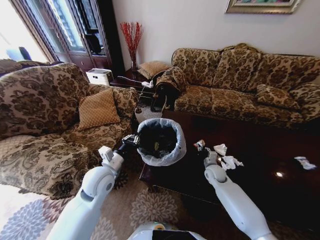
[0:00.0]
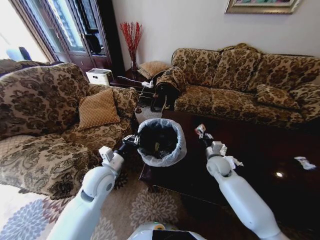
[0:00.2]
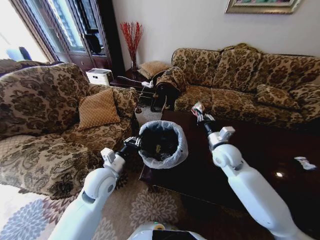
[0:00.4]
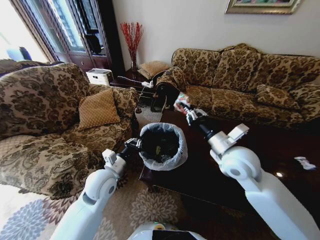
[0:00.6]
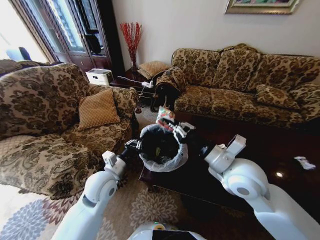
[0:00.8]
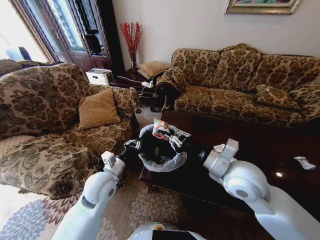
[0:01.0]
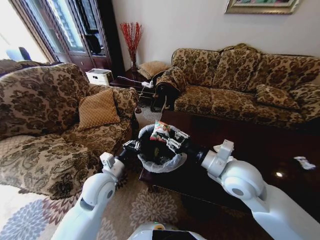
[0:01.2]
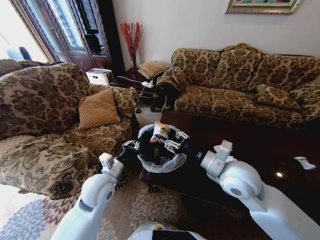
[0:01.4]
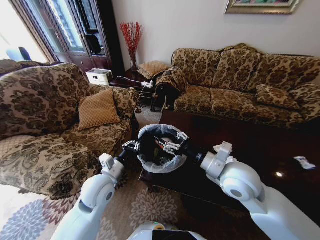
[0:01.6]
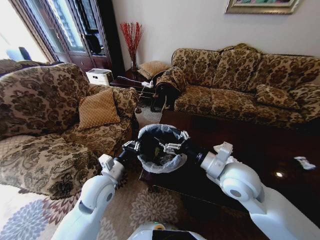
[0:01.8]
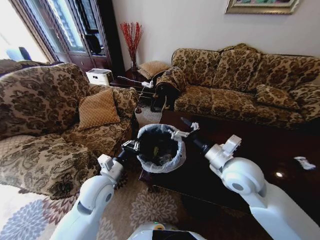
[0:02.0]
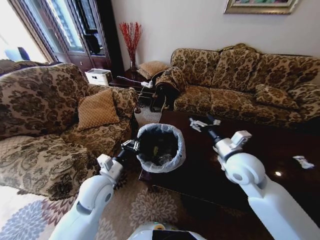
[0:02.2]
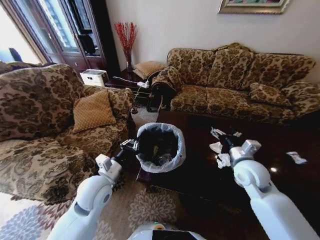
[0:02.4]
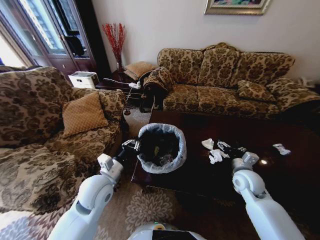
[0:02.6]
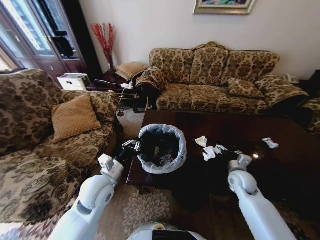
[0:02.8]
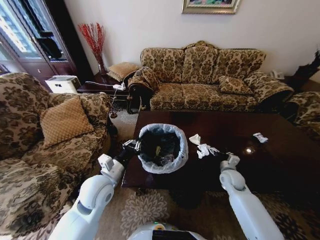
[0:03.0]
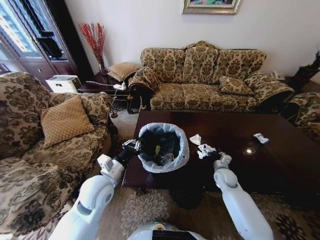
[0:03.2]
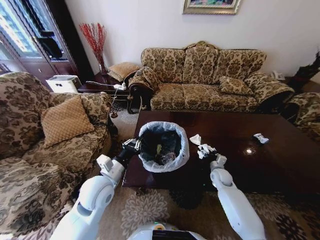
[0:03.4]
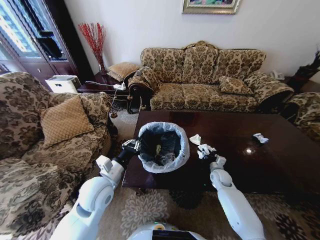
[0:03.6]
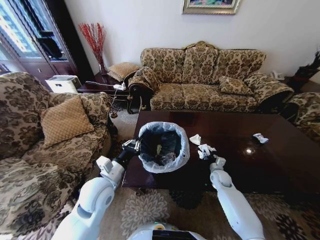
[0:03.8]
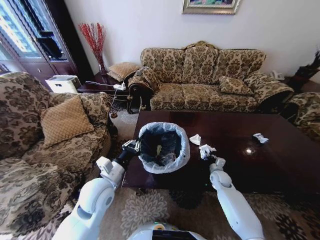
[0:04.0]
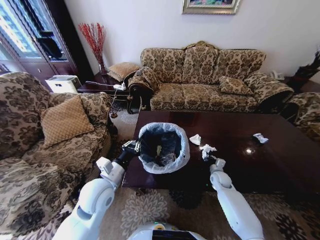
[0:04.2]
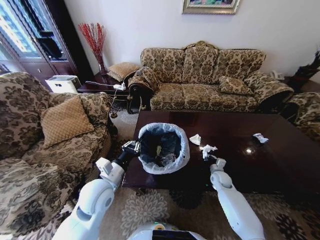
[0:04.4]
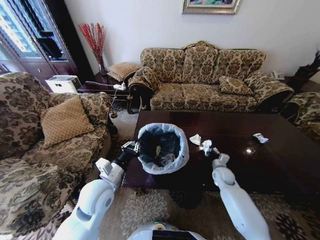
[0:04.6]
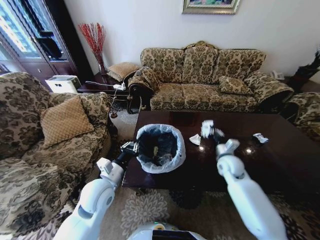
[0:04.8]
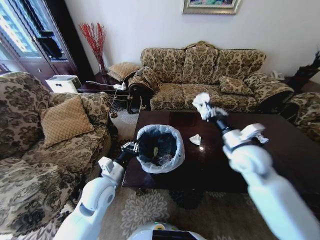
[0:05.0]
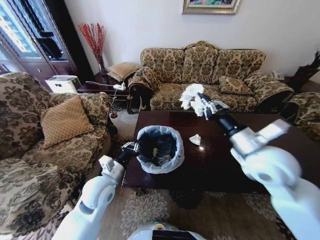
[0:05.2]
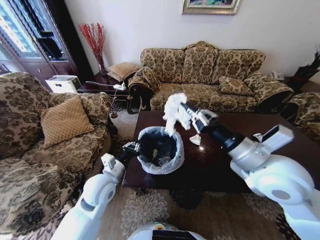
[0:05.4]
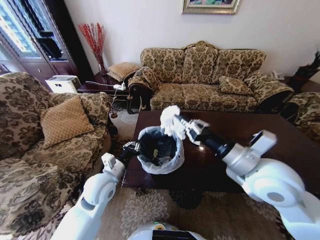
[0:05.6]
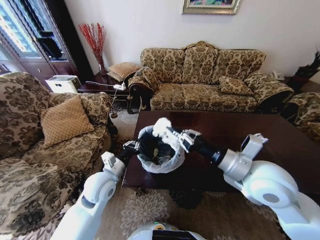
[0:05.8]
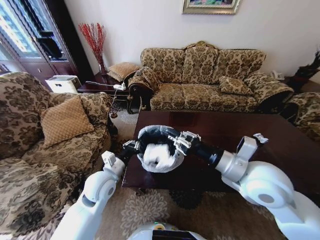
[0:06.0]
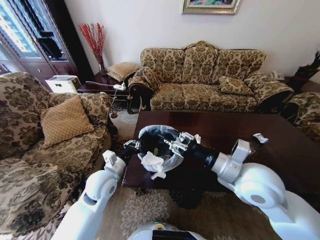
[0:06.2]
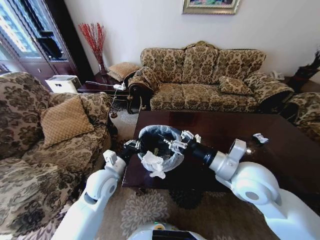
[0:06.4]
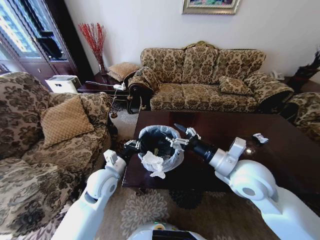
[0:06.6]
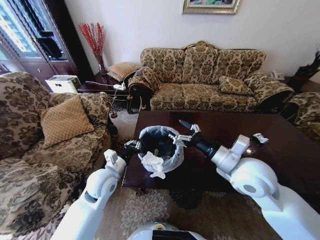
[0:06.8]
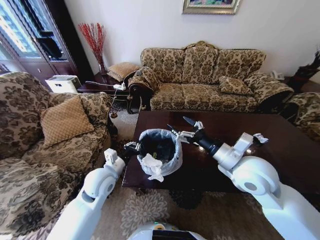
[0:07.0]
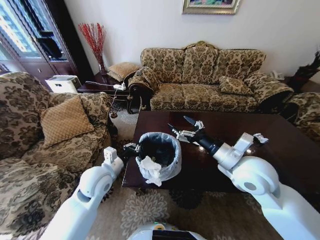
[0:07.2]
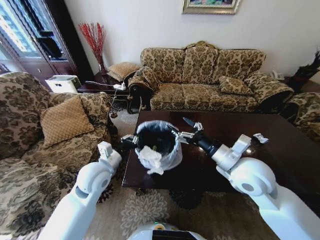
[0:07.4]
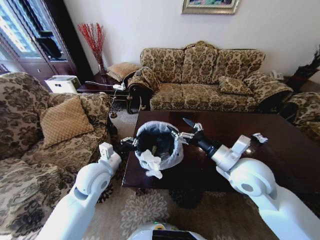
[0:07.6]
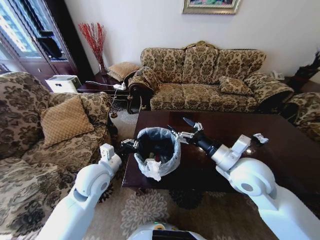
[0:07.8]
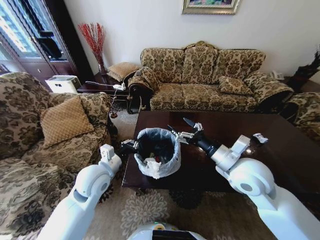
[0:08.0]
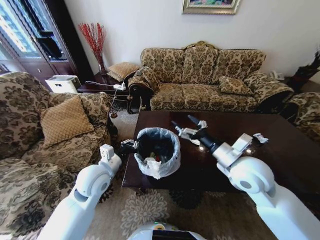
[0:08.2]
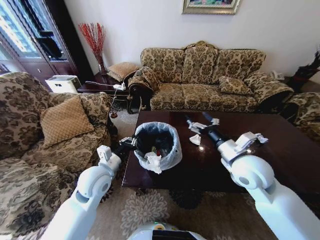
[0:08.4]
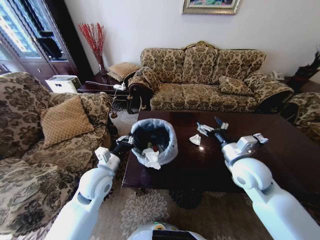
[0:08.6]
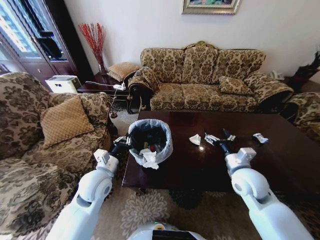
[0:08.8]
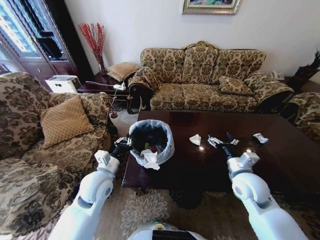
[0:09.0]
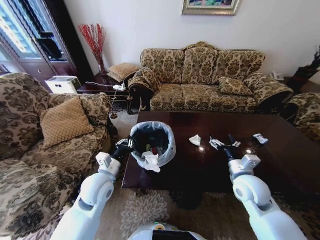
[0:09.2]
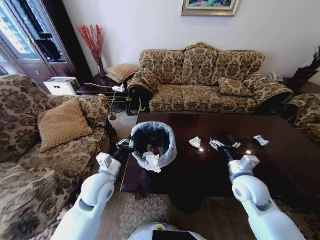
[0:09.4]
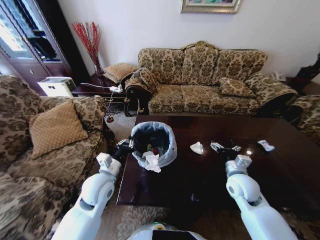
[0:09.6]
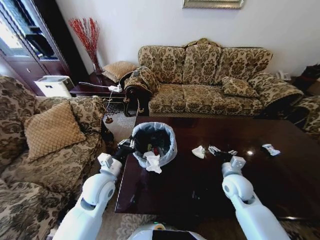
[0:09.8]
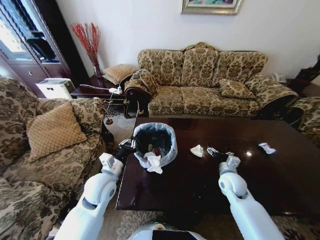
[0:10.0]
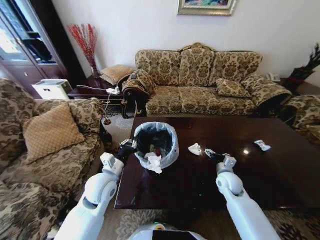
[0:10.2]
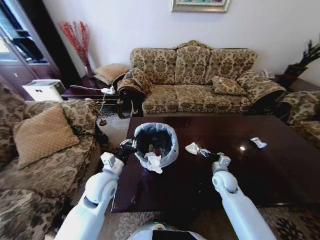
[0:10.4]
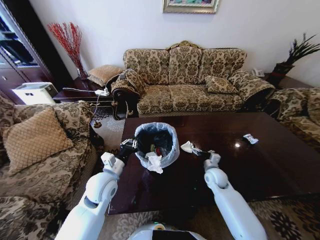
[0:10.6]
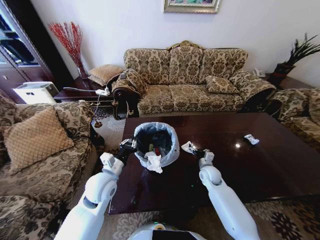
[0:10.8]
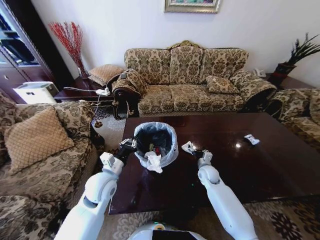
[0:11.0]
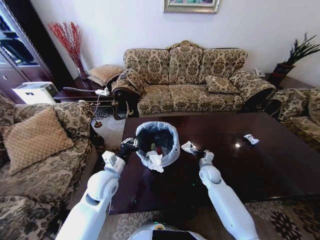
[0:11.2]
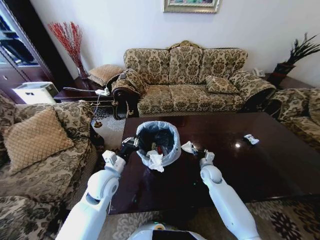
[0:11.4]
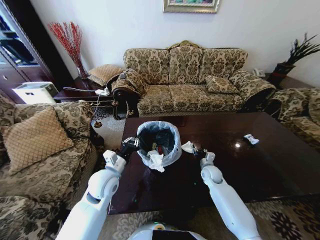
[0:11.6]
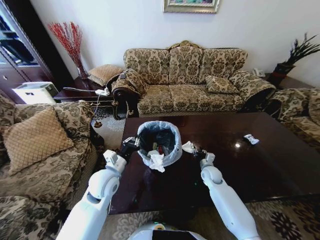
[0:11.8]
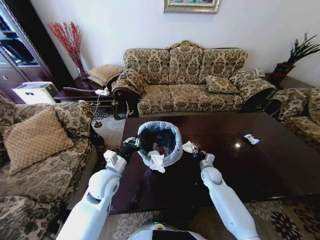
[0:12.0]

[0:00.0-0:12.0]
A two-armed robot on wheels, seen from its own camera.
Task of the whole recording: Move to the front of the table and place the trash on the table into the trash bin.
0:00.0 to 0:01.6: The right gripper goes roughly 30 cm upward and backward, and opens its fingers.
0:01.6 to 0:03.0: The right gripper moves downward, to the right and forward, some 30 cm.
0:03.0 to 0:04.4: The right gripper heads downward, covering approximately 5 cm, and closes.
0:04.4 to 0:06.0: The right gripper shifts some 35 cm upward and backward.
0:06.0 to 0:07.6: The right gripper opens.
0:07.6 to 0:09.0: The right gripper goes roughly 10 cm downward and to the right.
0:09.0 to 0:10.4: The right gripper shifts approximately 15 cm downward and forward.
0:10.4 to 0:12.0: The right gripper is displaced downward by roughly 5 cm, and closes up.

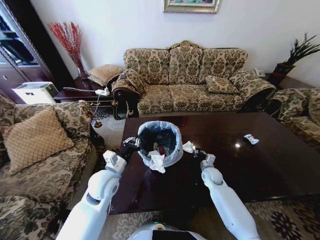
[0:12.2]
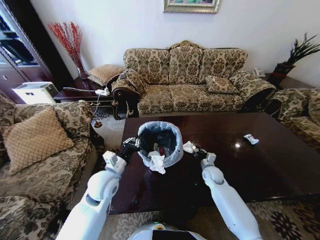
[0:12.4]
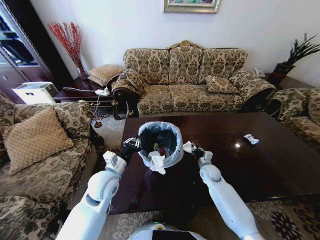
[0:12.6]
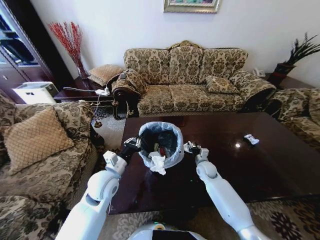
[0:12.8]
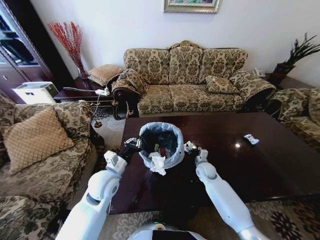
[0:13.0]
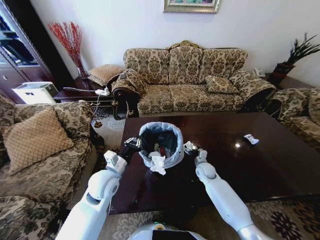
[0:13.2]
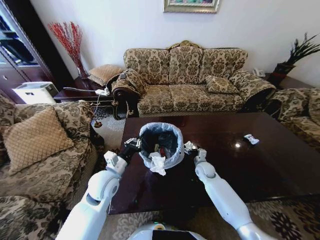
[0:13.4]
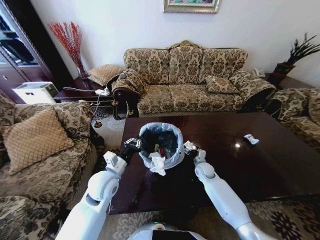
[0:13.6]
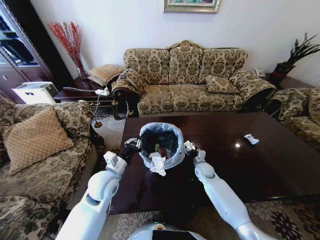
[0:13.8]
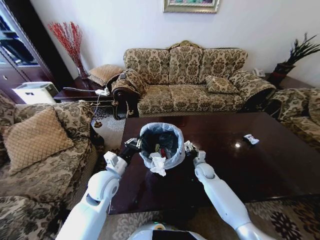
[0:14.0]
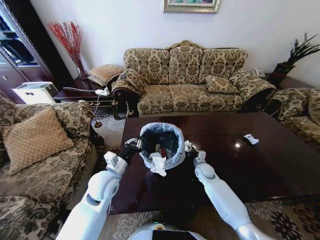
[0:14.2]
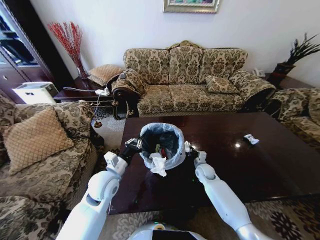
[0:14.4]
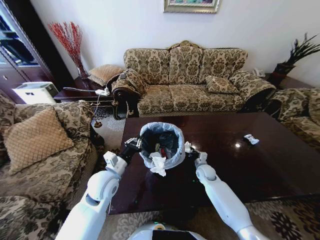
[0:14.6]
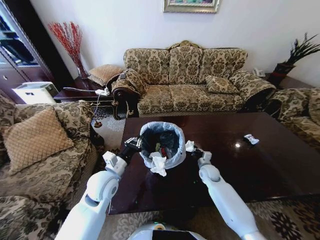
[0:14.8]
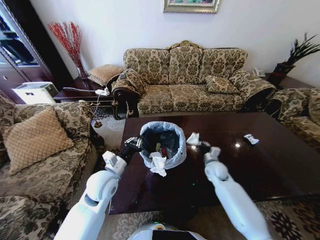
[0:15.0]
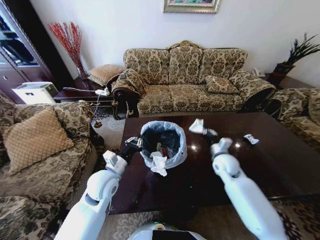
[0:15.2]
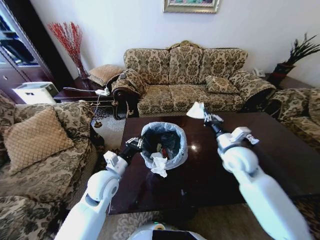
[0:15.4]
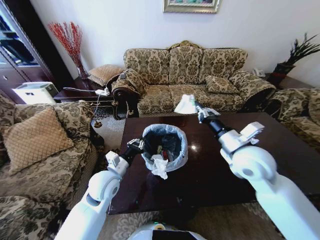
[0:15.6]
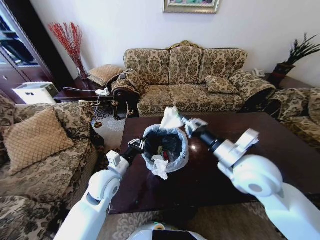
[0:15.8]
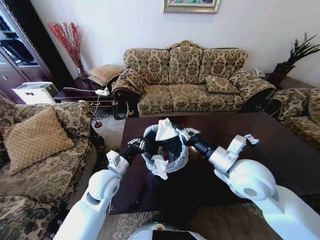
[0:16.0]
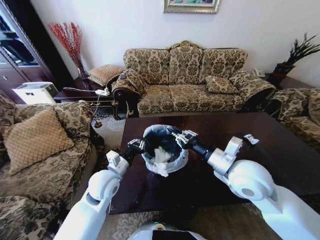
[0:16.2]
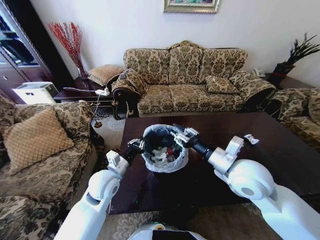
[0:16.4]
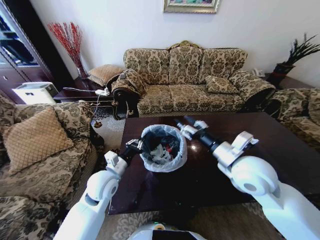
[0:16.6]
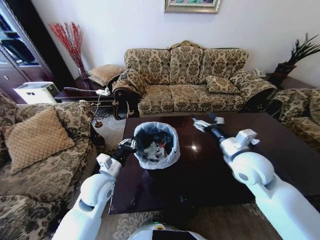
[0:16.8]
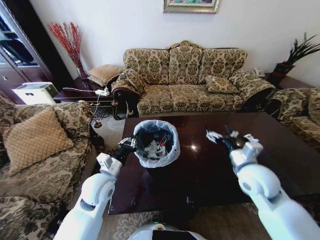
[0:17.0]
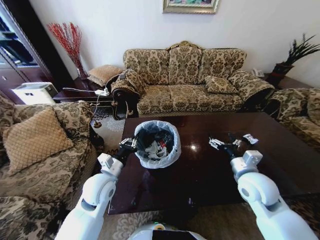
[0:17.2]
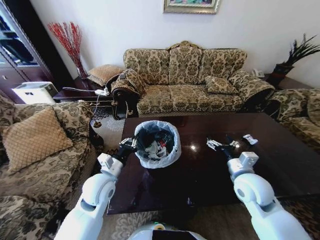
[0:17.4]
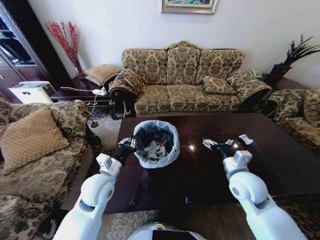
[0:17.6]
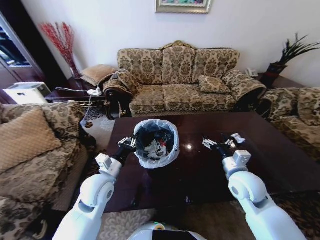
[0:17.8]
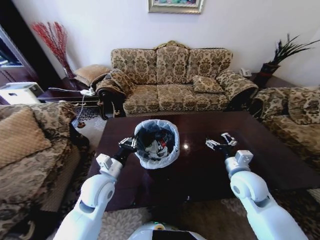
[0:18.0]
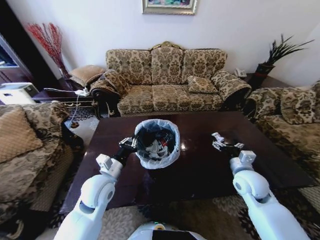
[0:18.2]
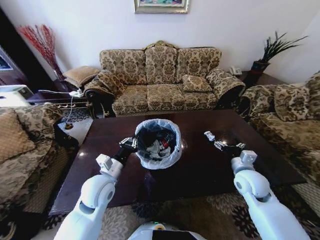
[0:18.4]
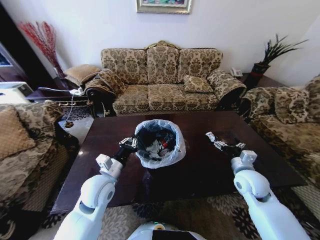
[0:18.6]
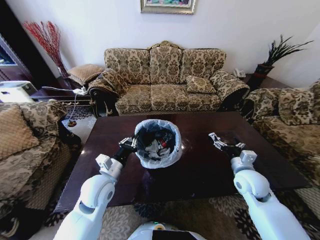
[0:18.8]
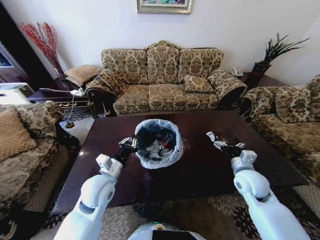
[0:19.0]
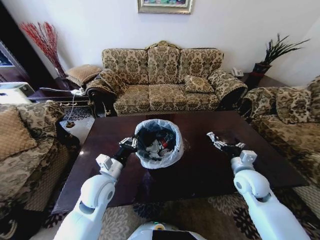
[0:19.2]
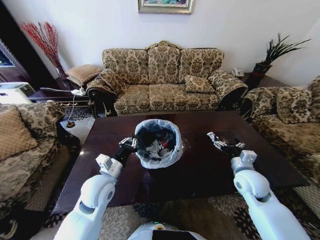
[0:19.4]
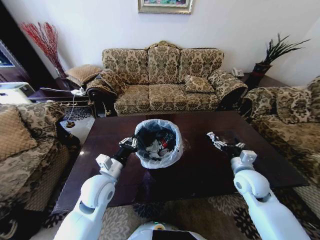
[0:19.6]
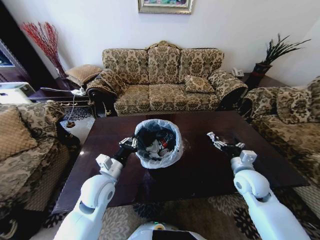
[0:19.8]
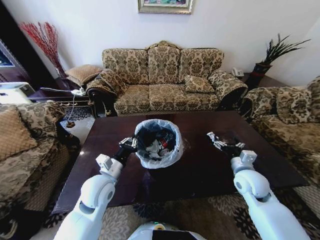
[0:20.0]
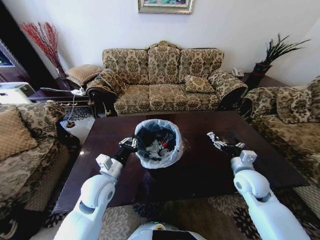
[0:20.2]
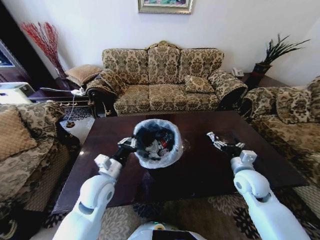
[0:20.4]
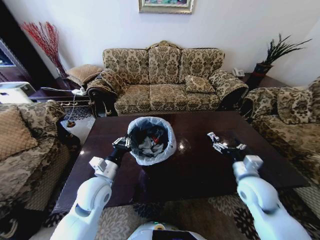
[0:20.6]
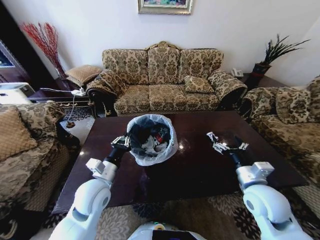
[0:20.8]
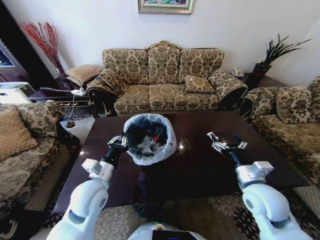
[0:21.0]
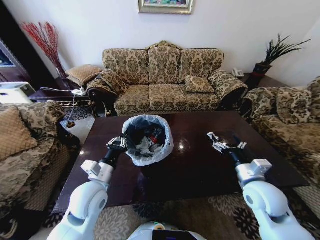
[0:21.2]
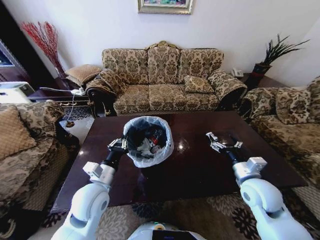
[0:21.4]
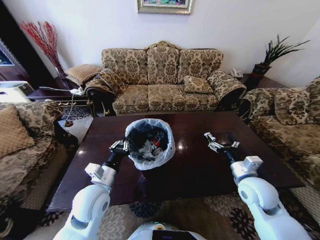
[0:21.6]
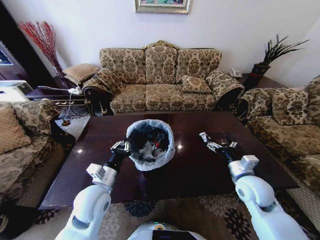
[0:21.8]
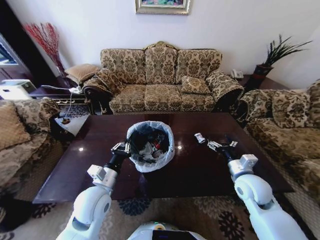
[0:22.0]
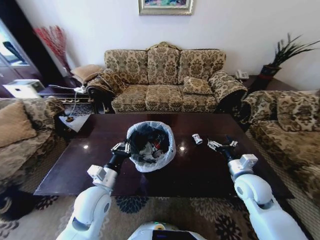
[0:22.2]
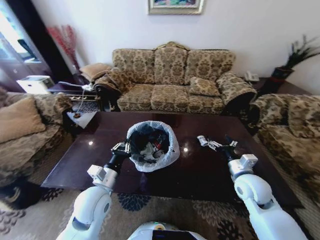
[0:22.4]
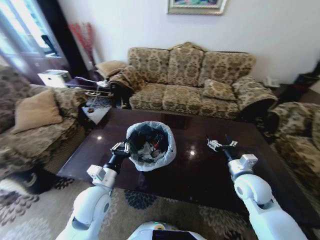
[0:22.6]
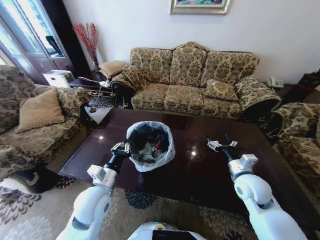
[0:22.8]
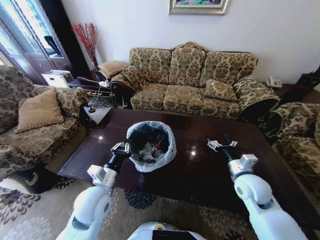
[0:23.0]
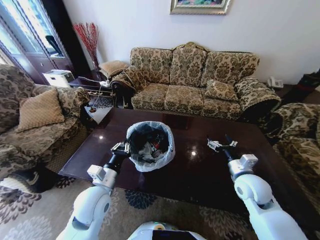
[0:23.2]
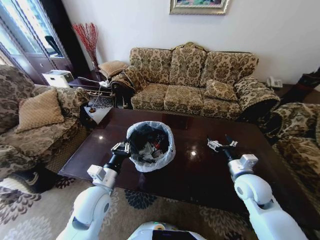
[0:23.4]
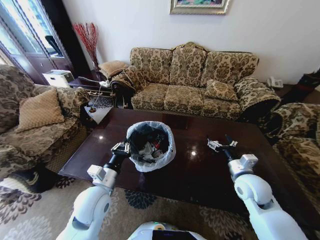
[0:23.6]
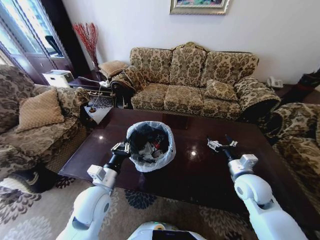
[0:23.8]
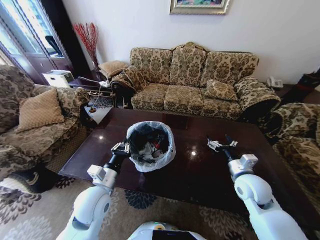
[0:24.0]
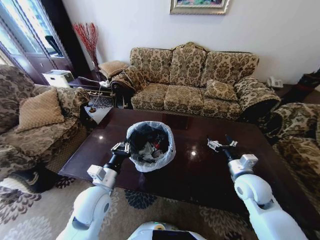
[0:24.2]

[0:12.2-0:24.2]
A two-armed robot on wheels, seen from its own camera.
Task of the whole recording: Move to the front of the table and place the trash on the table into the trash bin.
0:12.2 to 0:13.8: The right gripper opens up.
0:13.8 to 0:15.2: The right gripper moves upward, roughly 20 cm, and closes up.
0:15.2 to 0:16.6: The right gripper moves upward and backward, roughly 15 cm, and opens.
0:16.6 to 0:18.2: The right gripper shifts roughly 15 cm downward and to the right, and opens.
0:18.2 to 0:19.8: Neither gripper changes place.
0:19.8 to 0:21.2: The right gripper goes some 5 cm backward.
0:22.6 to 0:24.2: Both grippers stay about where they are.
